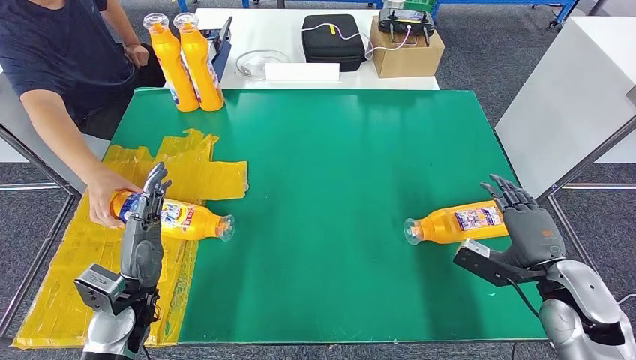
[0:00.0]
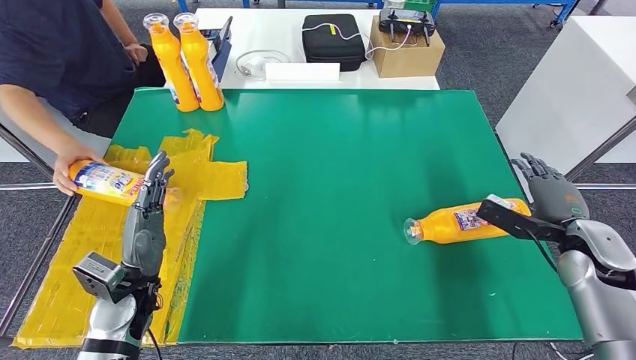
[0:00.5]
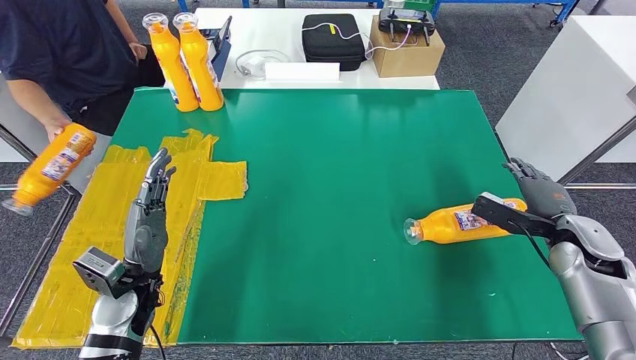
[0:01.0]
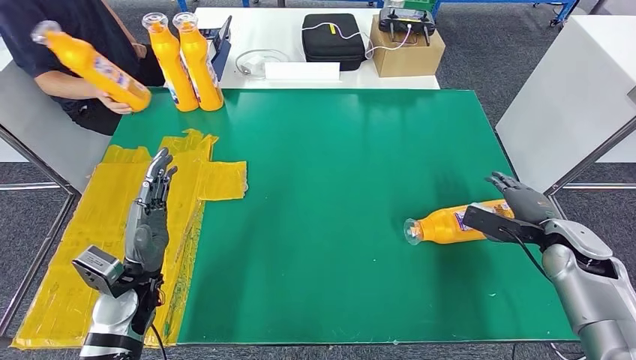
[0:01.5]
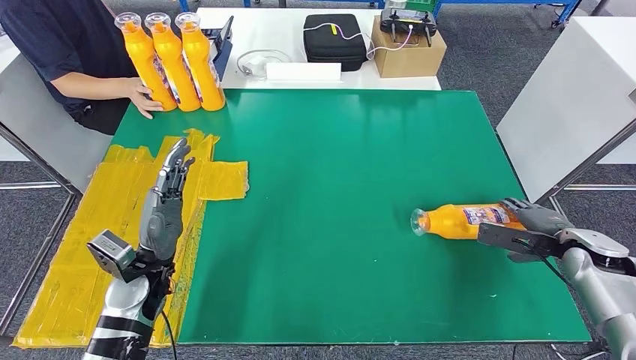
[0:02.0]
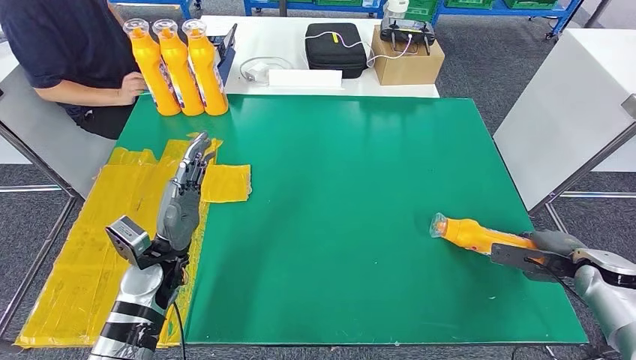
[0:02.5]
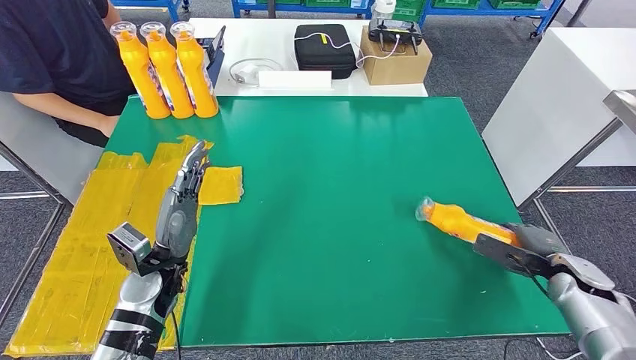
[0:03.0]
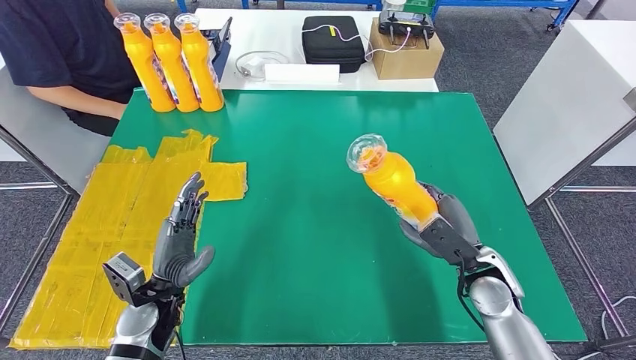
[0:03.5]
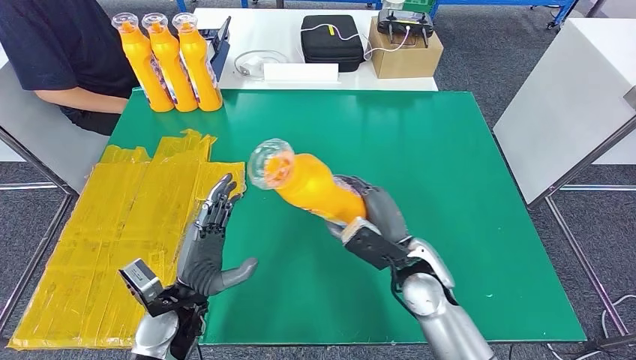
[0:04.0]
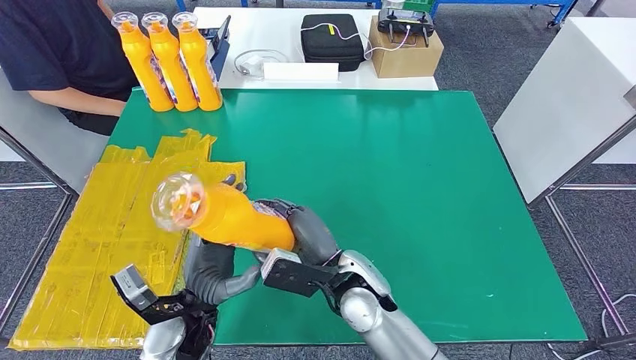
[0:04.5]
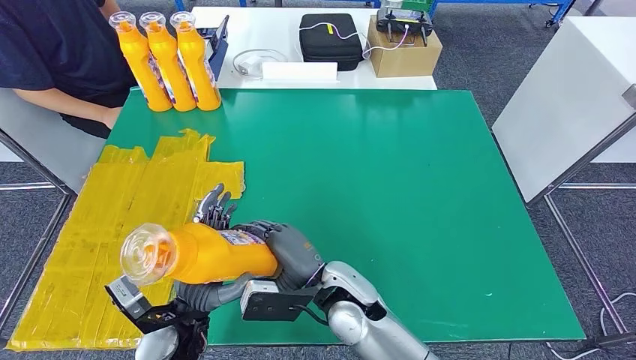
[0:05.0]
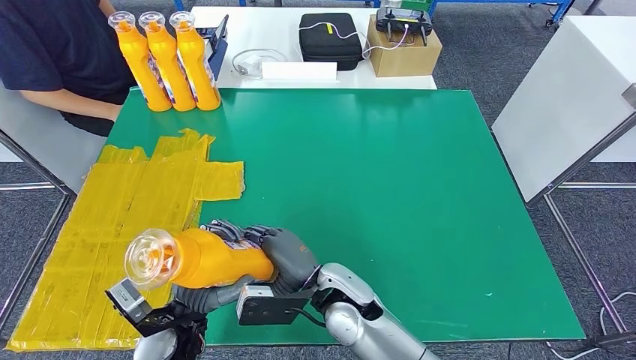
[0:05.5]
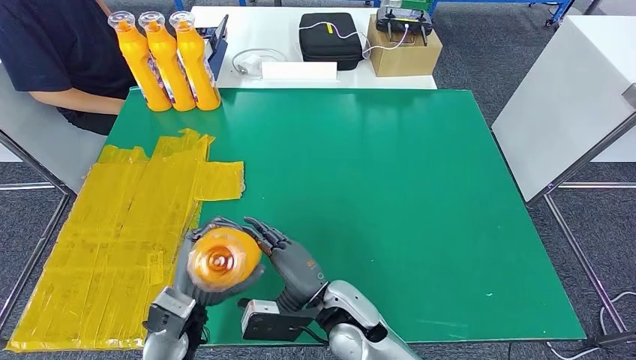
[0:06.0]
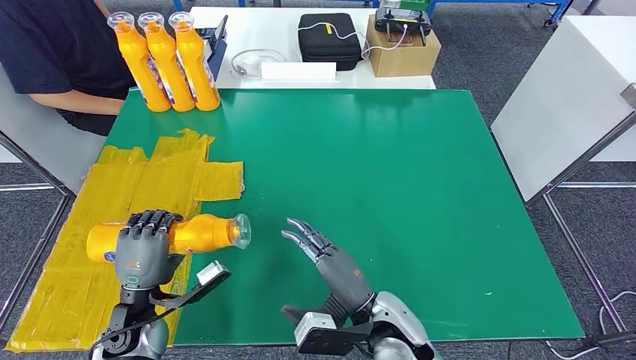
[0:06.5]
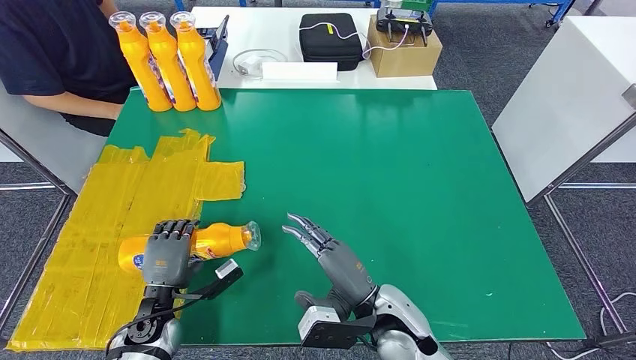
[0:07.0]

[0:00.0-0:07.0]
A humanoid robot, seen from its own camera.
Step, 0:00.0 to 0:03.5: Pick up the bottle from the table.
Step, 0:04.0 to 0:07.0: Flip the bottle to face forward.
0:05.0 to 0:07.0: The right hand goes roughly 10 cm to the right. Meanwhile the left hand shifts about 10 cm to the left and downward.
